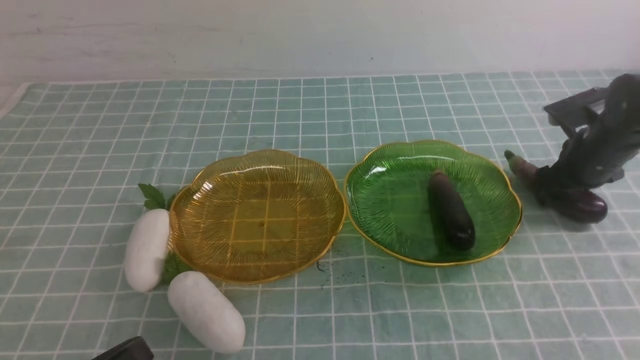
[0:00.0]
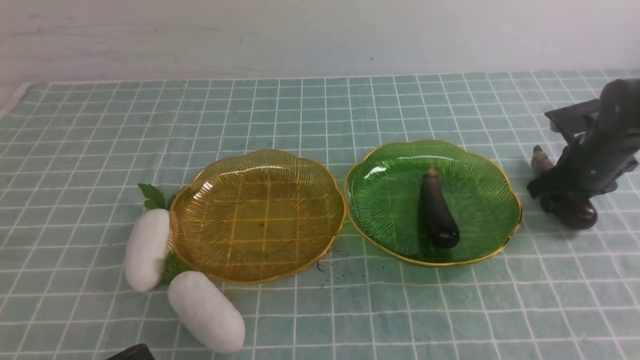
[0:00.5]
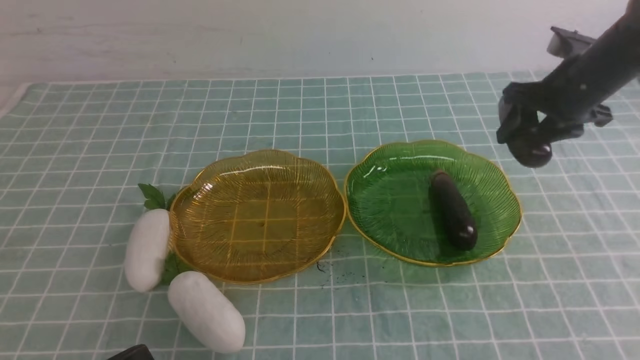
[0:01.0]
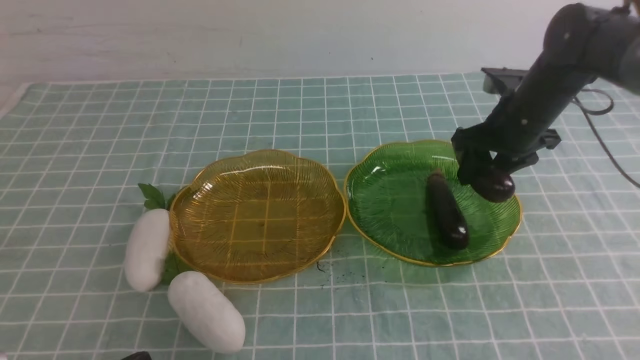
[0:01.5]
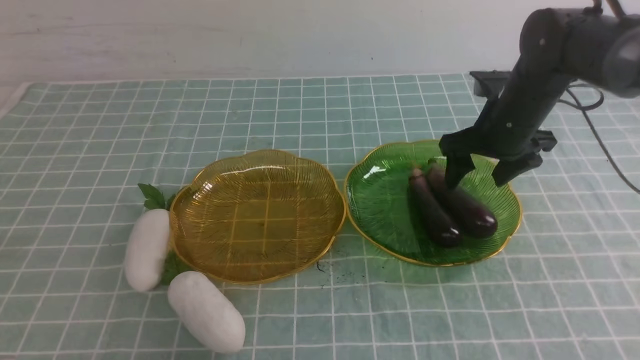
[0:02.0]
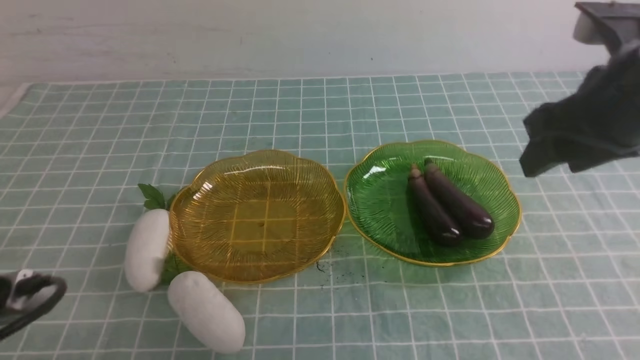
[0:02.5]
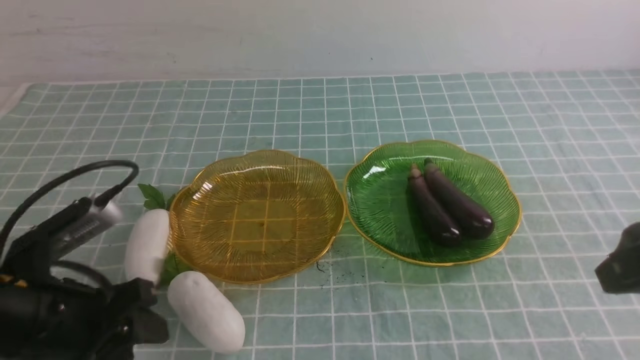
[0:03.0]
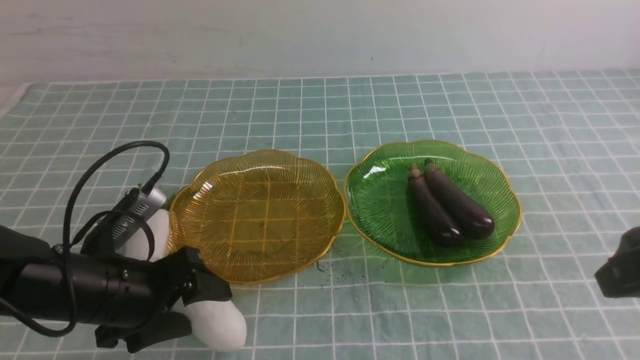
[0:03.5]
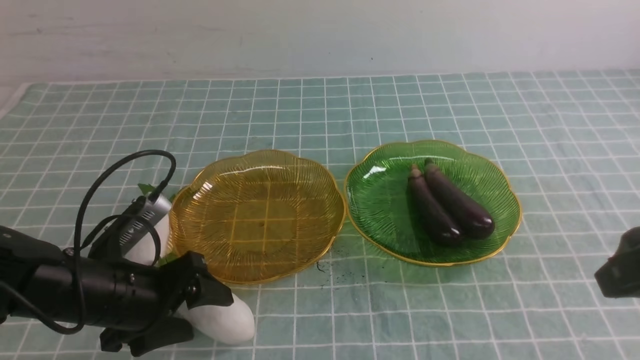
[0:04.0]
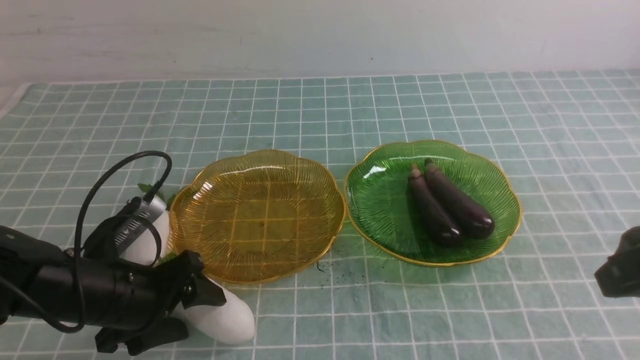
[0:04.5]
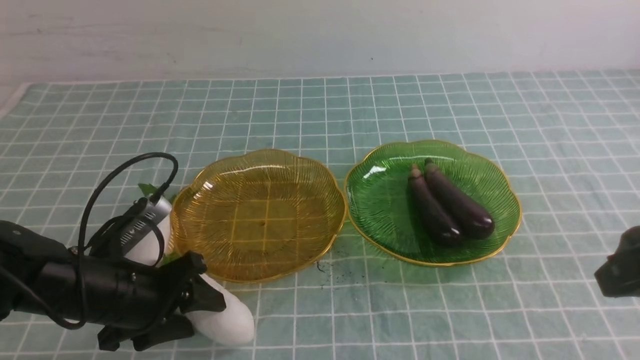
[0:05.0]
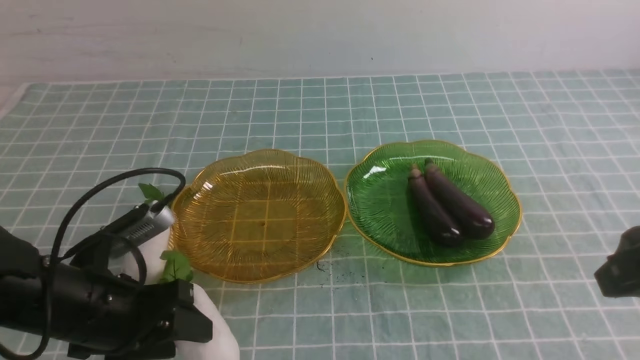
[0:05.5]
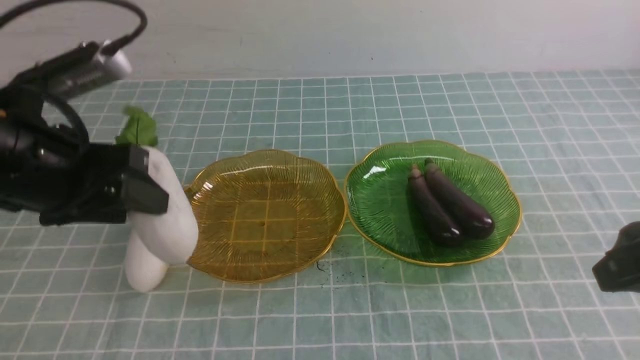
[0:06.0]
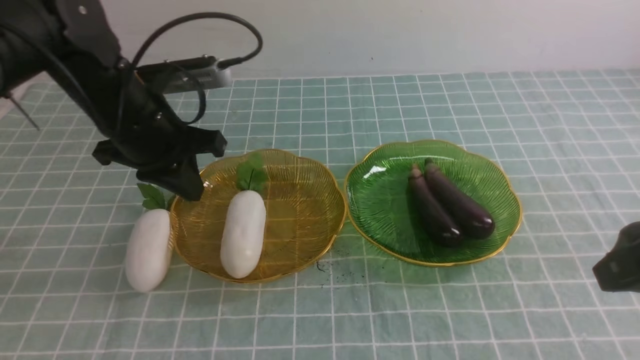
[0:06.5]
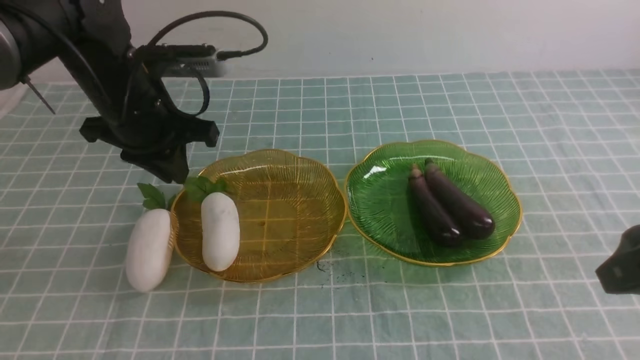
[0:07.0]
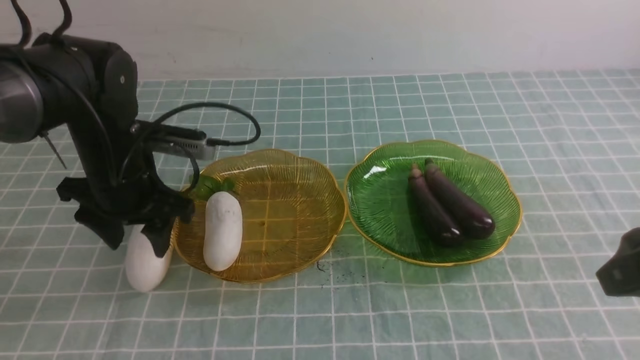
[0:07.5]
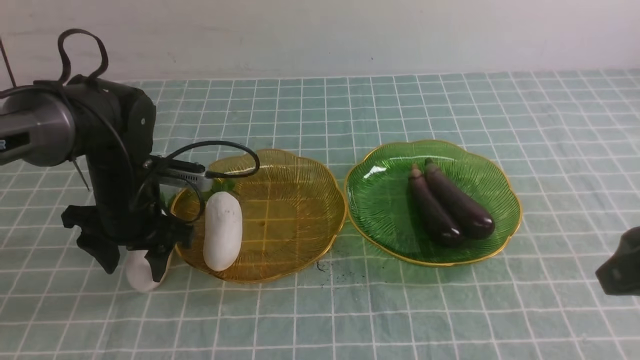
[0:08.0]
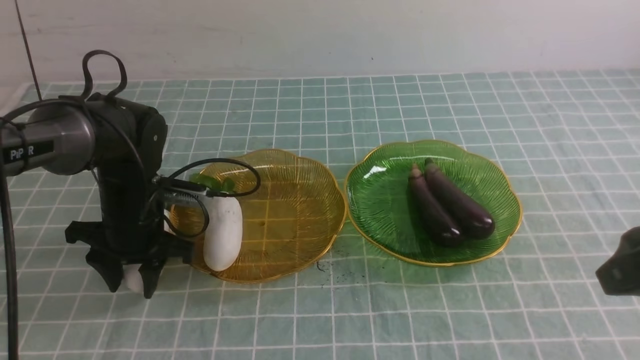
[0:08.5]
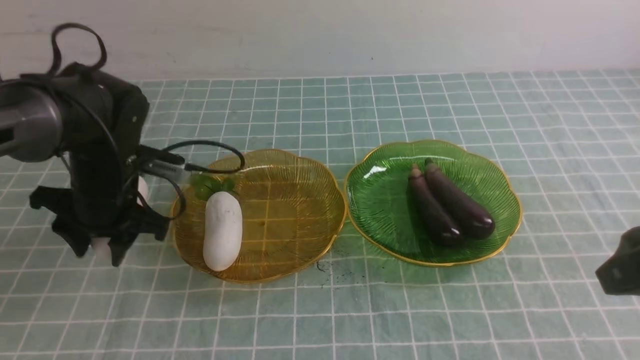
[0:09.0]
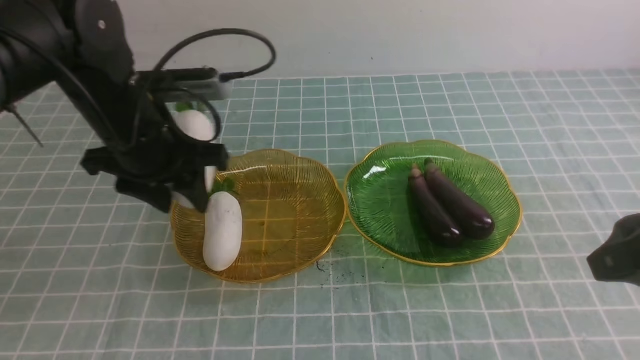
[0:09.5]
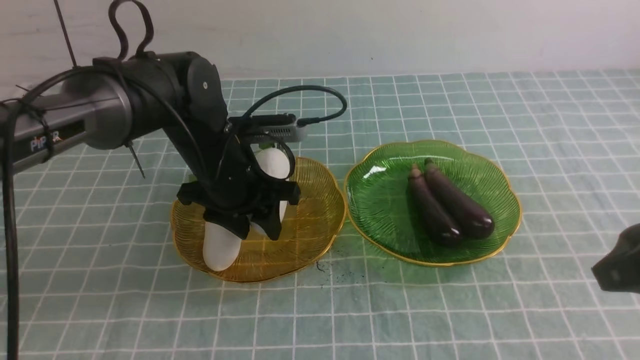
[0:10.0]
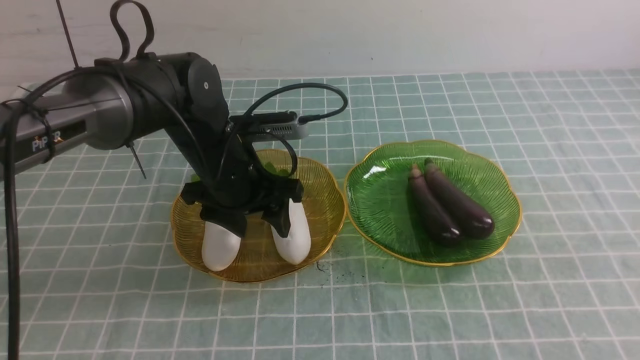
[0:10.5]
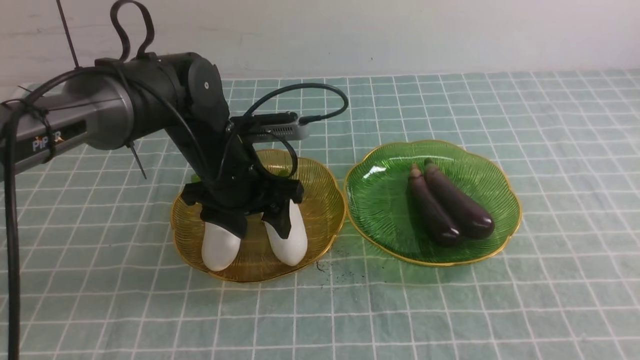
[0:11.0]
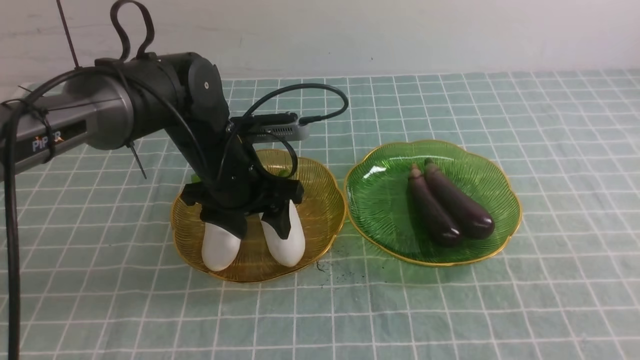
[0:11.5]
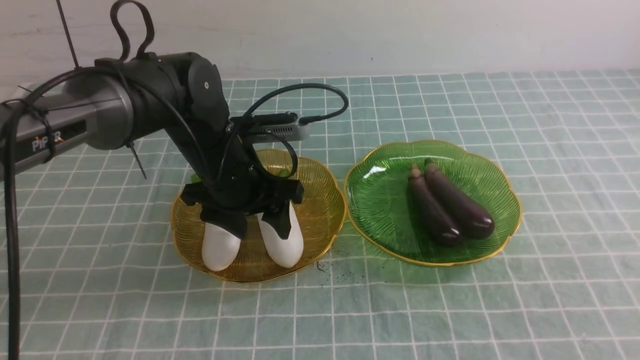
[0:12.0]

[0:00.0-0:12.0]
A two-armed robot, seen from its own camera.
Step, 0:00.0 to 0:02.0: use the right arm to grab an eggplant and put it into the right plate.
Step, 0:02.5 to 0:06.0: use the left arm to grab a radish and put it into the left plate.
Step, 0:06.5 to 0:10.0: use the left arm to grab a radish and put it into the left plate.
0:00.0 to 0:02.0: The right gripper travels to the left and upward by roughly 15 cm.
0:02.0 to 0:04.0: The right gripper heads backward, covering approximately 25 cm, while the left gripper heads forward, covering about 20 cm, and opens its fingers.
0:04.0 to 0:06.0: The left gripper moves upward, some 15 cm, and closes up.
0:06.0 to 0:08.0: The left gripper travels downward and forward by about 15 cm, and opens up.
0:08.0 to 0:10.0: The left gripper heads to the right, covering some 10 cm.
0:10.0 to 0:12.0: The right gripper shifts some 10 cm backward, and closes up.

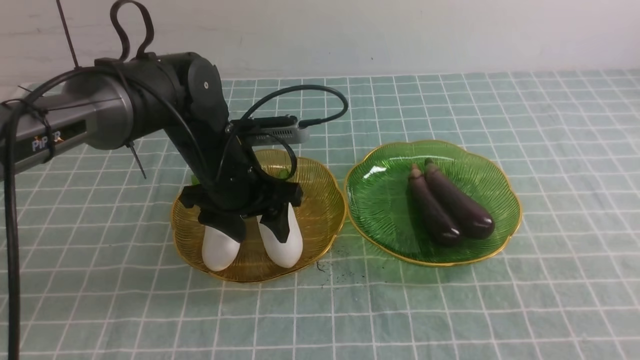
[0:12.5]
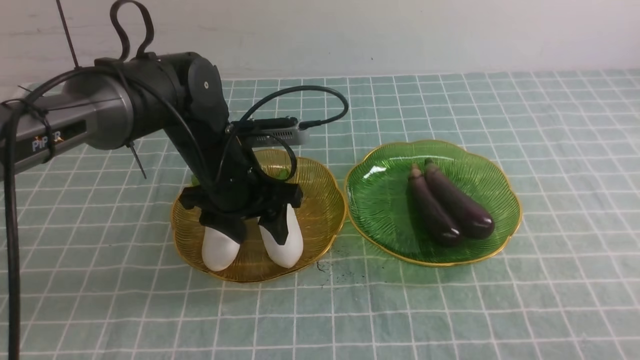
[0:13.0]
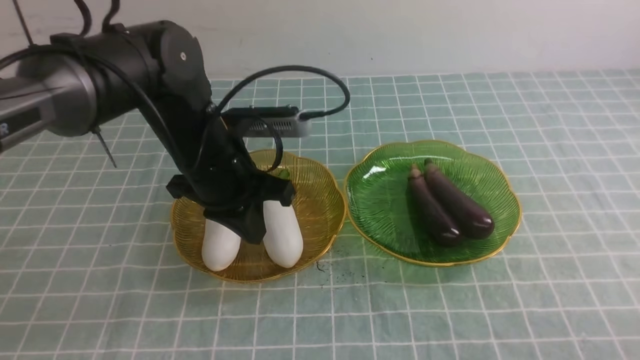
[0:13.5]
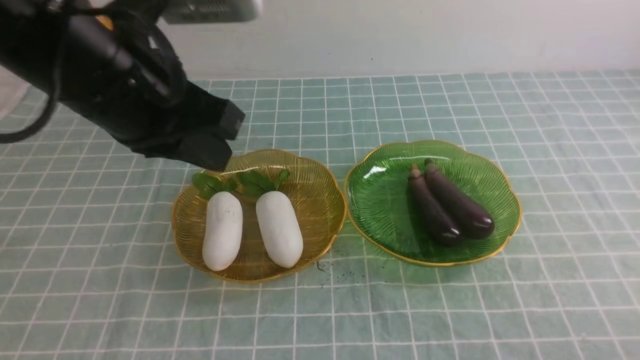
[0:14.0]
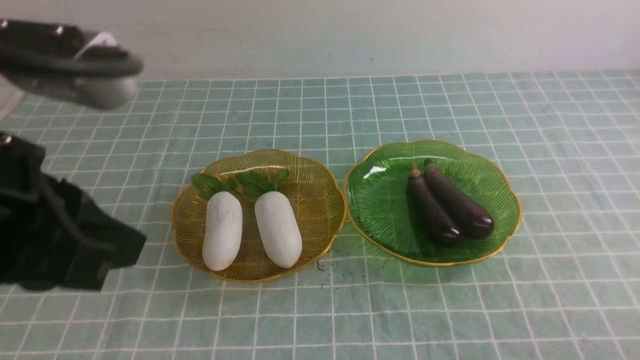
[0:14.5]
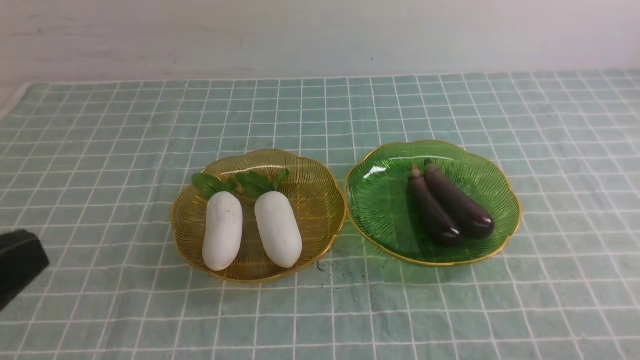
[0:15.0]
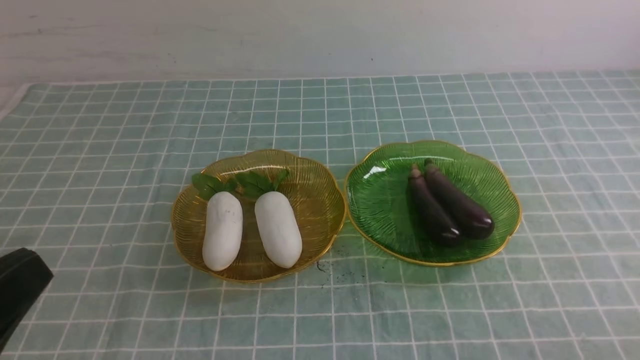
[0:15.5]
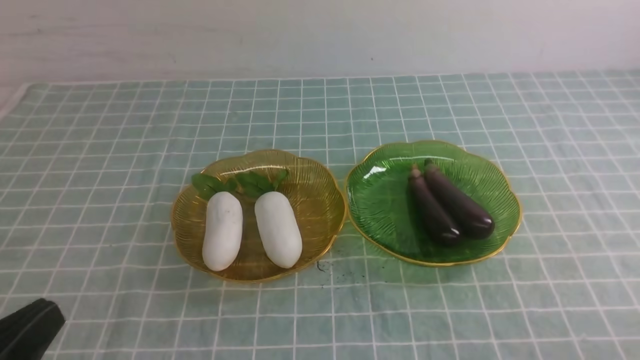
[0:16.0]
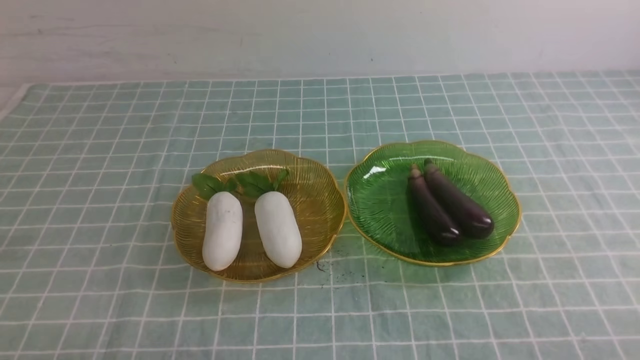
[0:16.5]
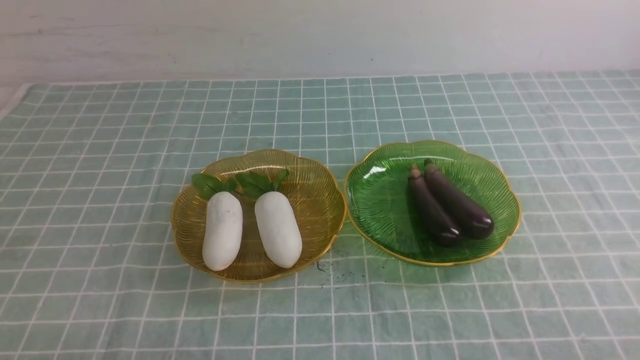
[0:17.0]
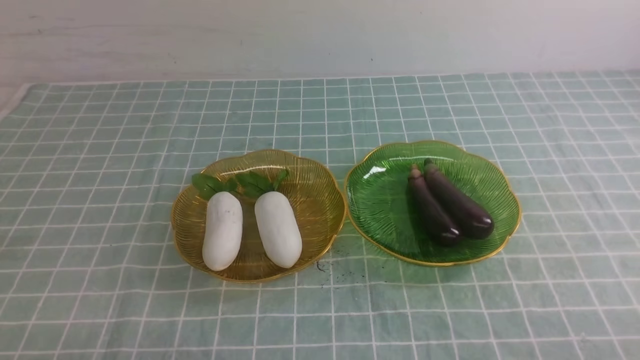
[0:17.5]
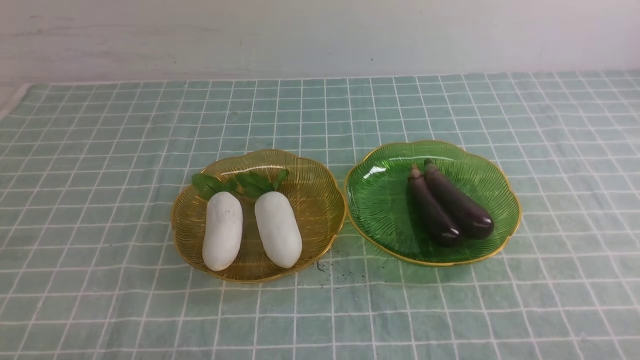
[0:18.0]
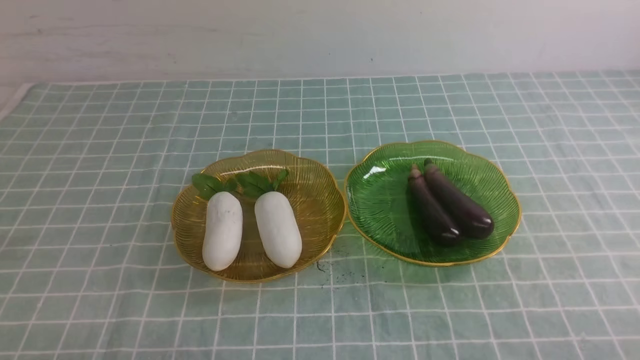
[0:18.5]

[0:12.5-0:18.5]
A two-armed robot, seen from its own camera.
0:12.5 to 0:14.5: The left gripper is displaced backward and upward by approximately 30 cm, and closes its fingers, while the right gripper travels downward by approximately 10 cm.
0:14.5 to 0:16.5: The left gripper shifts approximately 20 cm downward.
0:16.5 to 0:18.5: Both grippers stay put.
